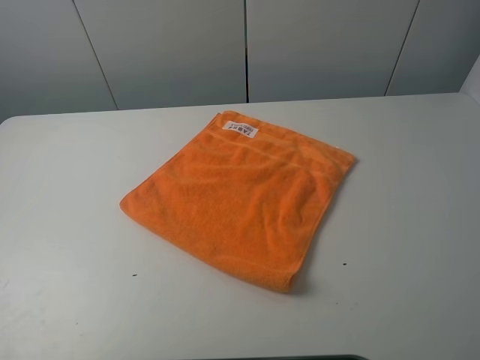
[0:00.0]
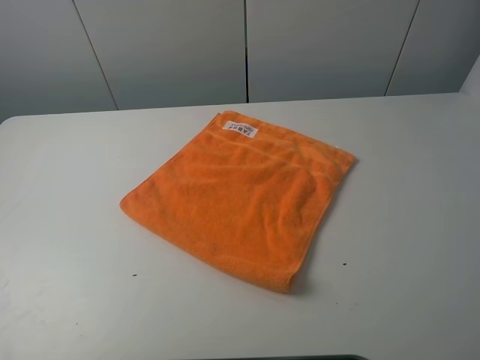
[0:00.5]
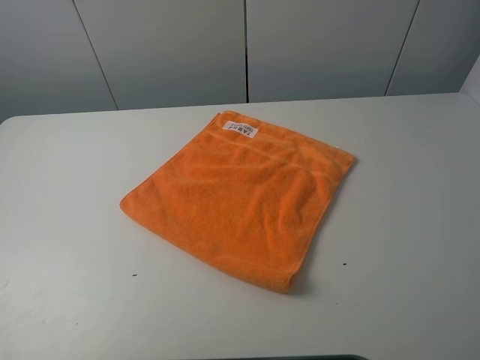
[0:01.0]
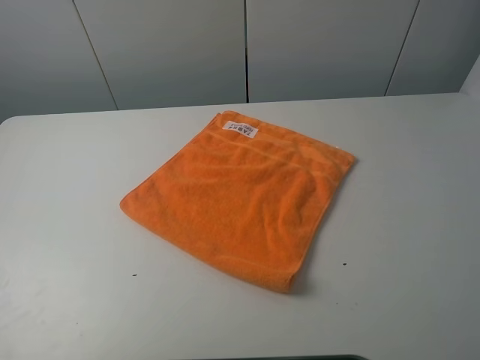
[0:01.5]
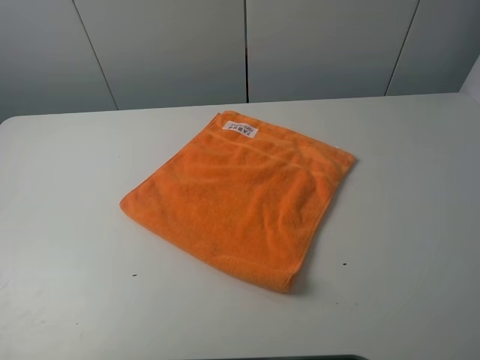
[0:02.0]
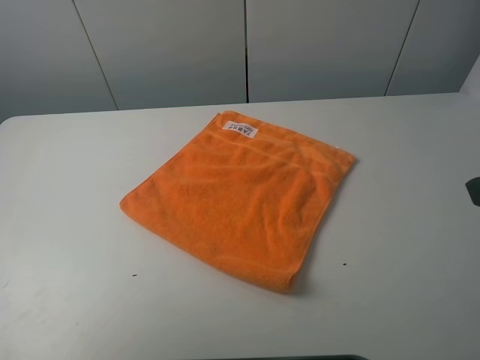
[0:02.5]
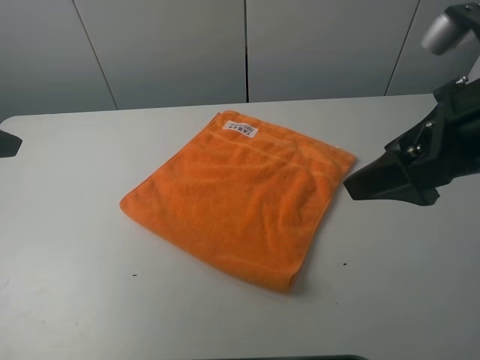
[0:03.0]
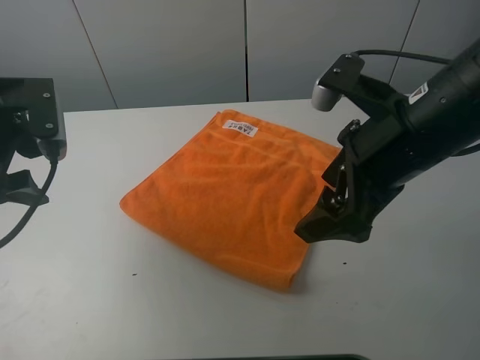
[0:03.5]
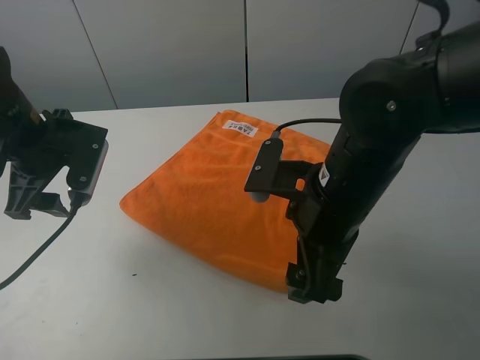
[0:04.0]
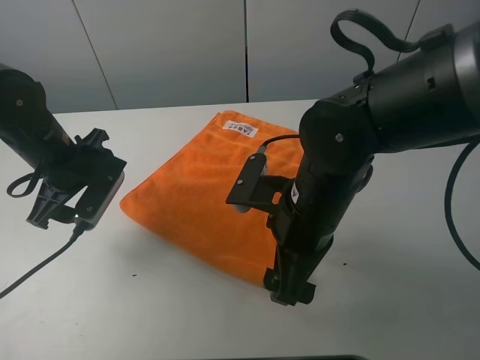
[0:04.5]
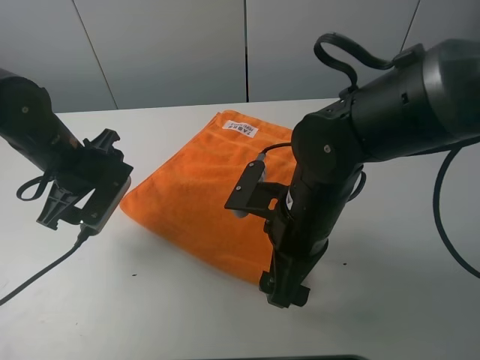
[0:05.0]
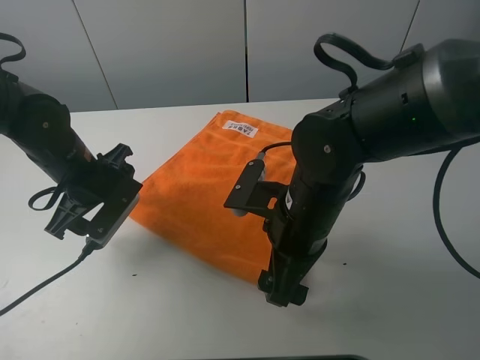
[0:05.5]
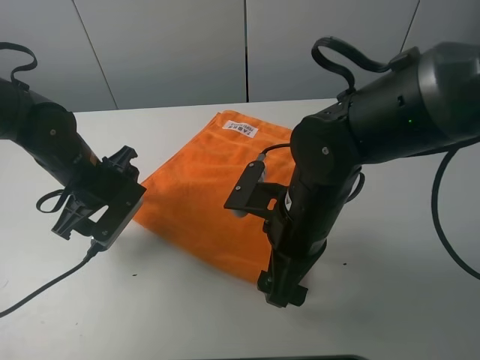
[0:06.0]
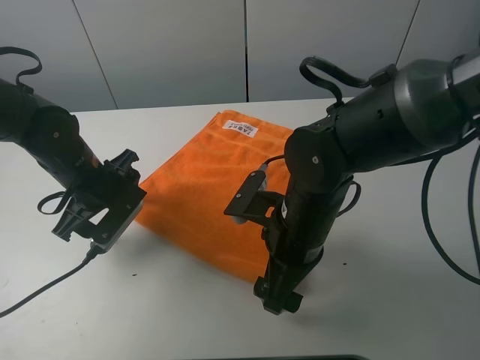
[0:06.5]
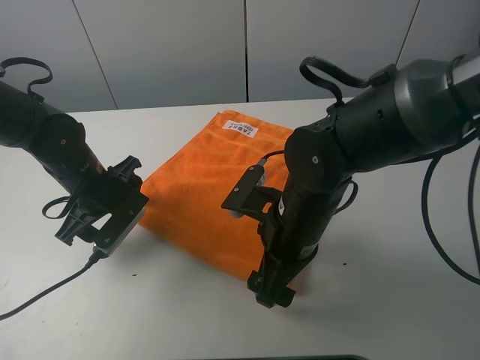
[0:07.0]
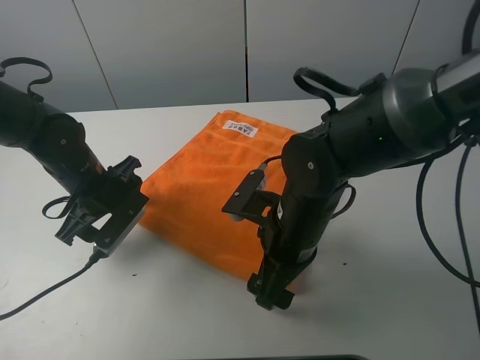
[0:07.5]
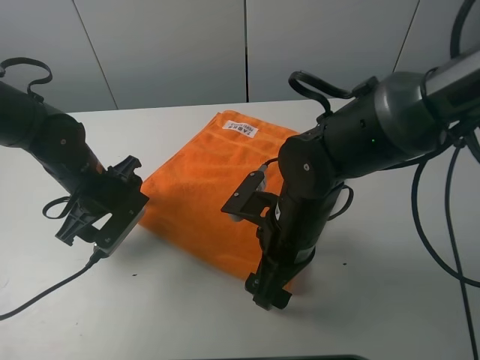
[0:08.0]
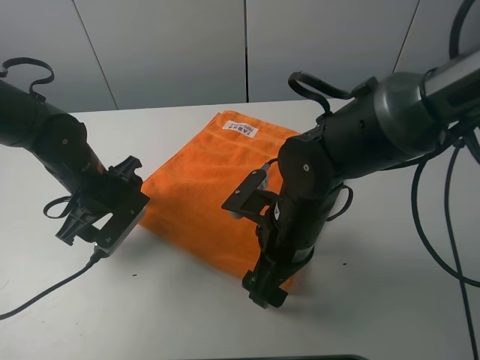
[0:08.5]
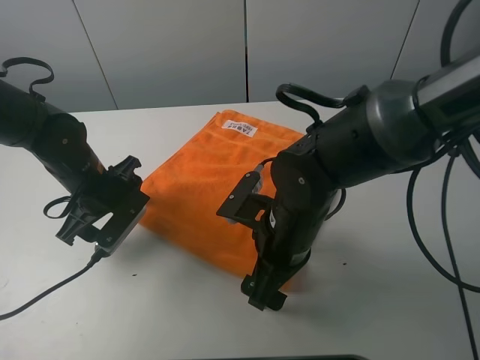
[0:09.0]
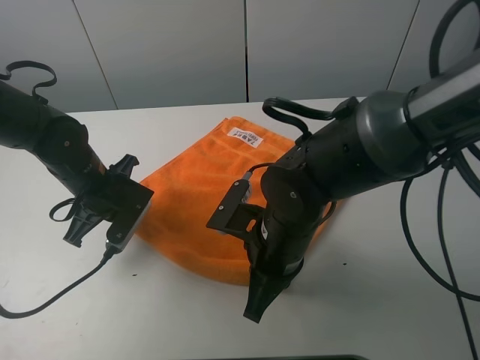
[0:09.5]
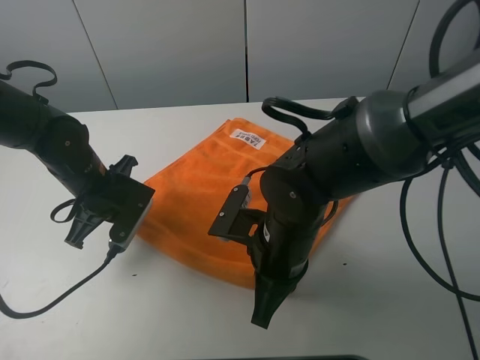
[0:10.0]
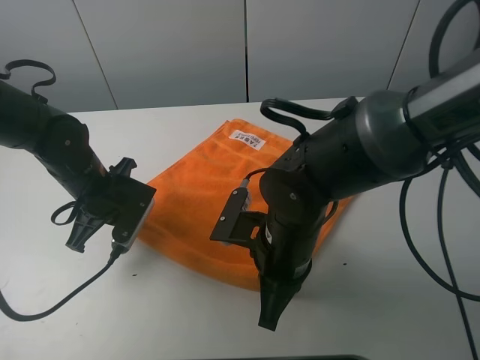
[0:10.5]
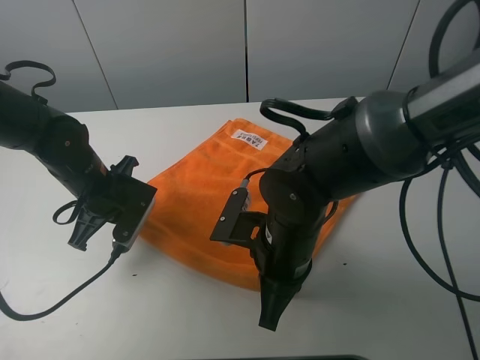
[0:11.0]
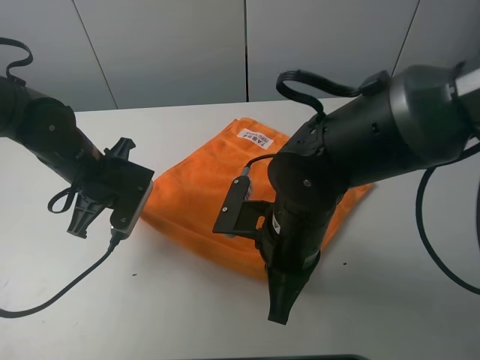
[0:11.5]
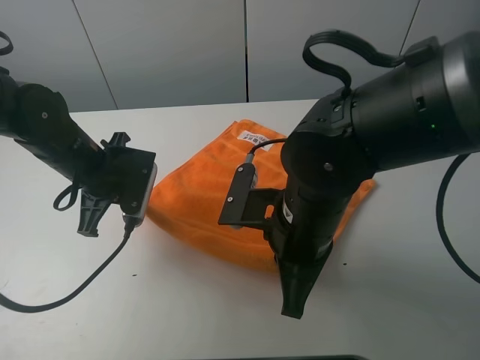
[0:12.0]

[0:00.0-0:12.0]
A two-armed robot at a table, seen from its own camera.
Task of the whole recording: fold the towels on the table.
Step, 0:00.0 to 0:09.5: Grasp the orange towel with the left gripper.
0:00.0 to 0:02.0: Both grippers stay put.
0:02.0 to 0:04.0: The left gripper travels forward by some 30 cm. The right gripper goes some 30 cm to the left, forward and downward.
0:04.0 to 0:06.0: The left gripper shifts some 5 cm downward. Meanwhile the right gripper changes place by roughly 5 cm.
0:06.0 to 0:08.0: There are only small adjustments of the grippers.
0:08.0 to 0:10.0: The right gripper closes up, while the left gripper closes up.
0:10.0 to 0:12.0: The right gripper changes place by some 5 cm.

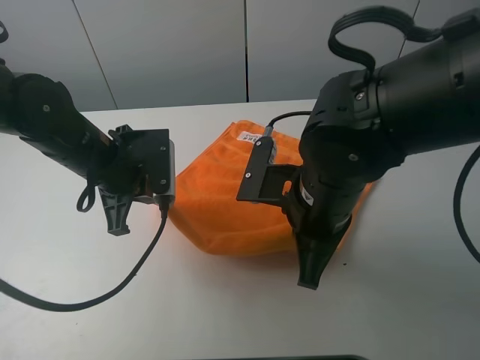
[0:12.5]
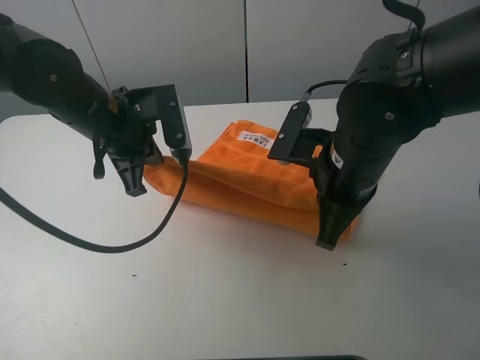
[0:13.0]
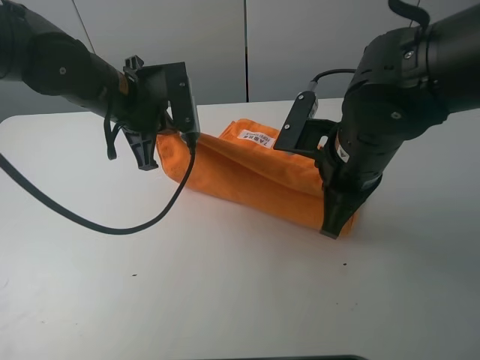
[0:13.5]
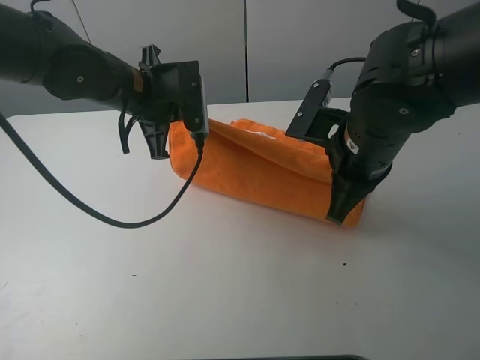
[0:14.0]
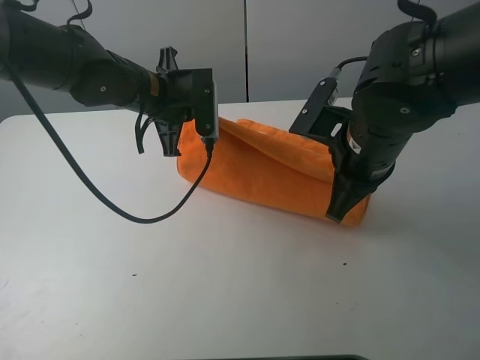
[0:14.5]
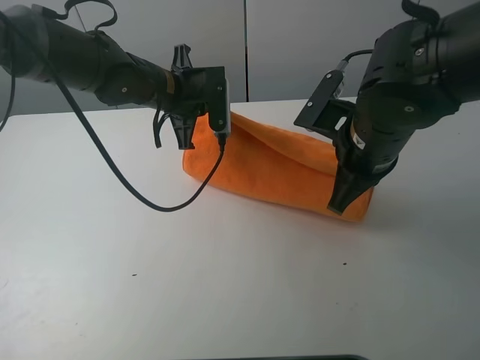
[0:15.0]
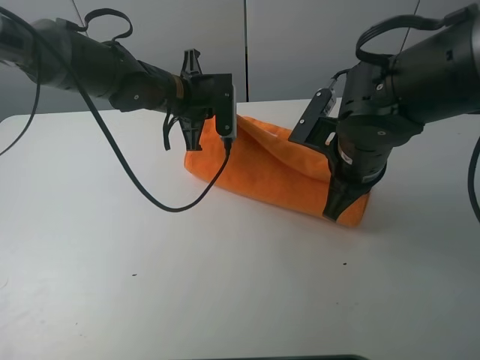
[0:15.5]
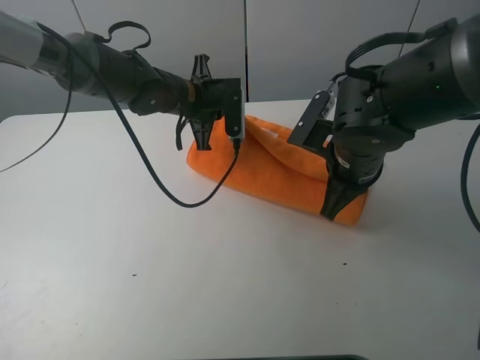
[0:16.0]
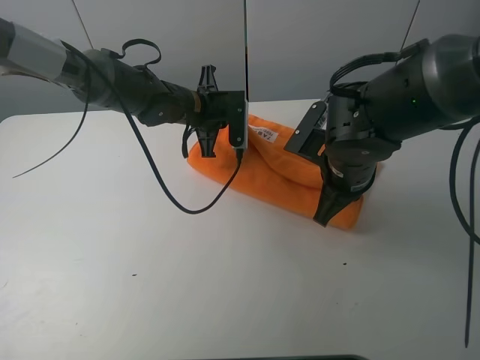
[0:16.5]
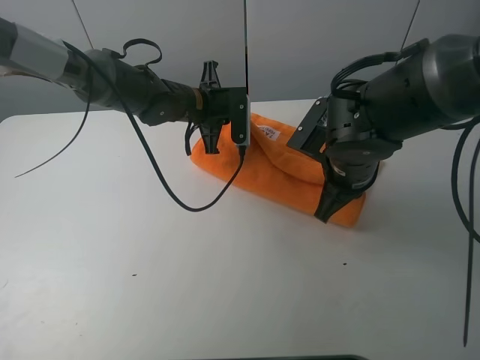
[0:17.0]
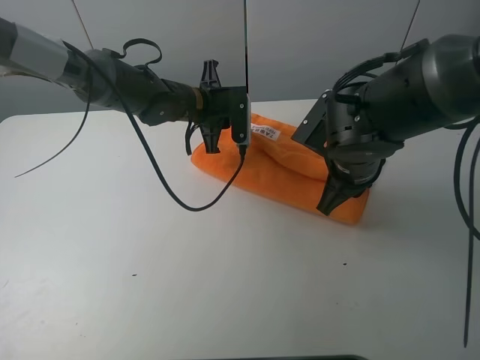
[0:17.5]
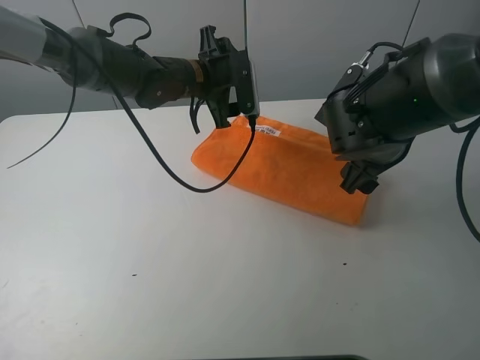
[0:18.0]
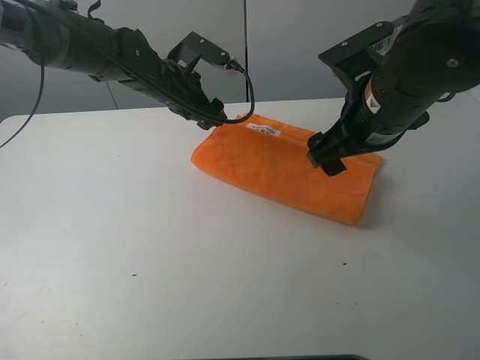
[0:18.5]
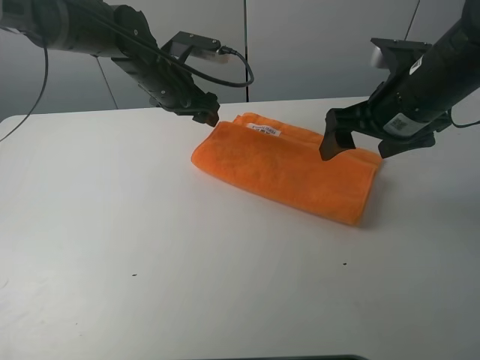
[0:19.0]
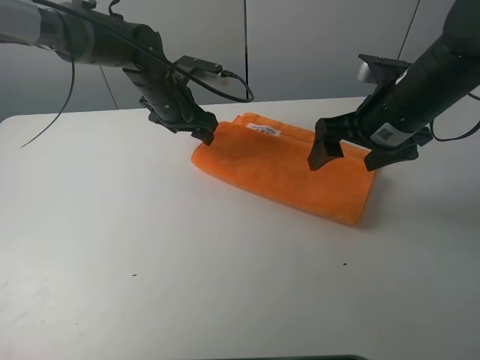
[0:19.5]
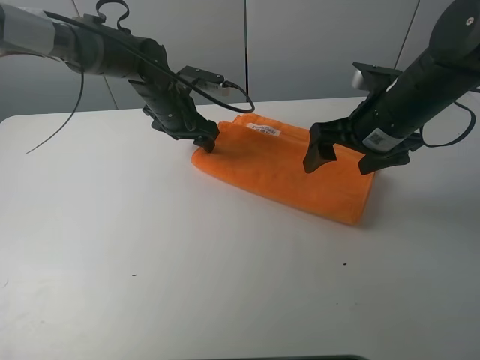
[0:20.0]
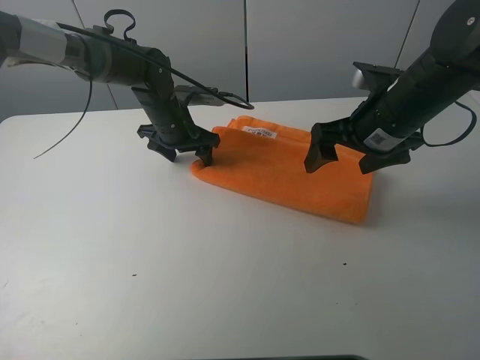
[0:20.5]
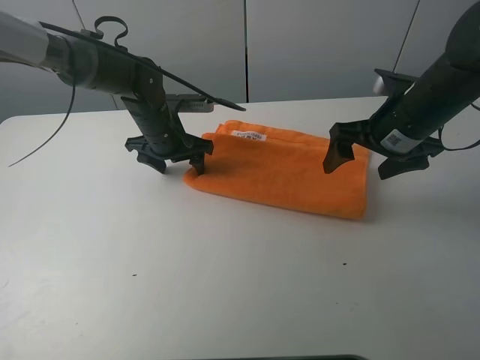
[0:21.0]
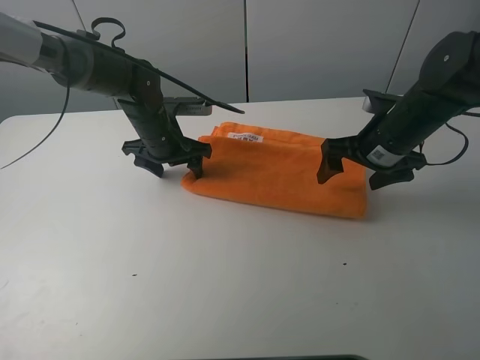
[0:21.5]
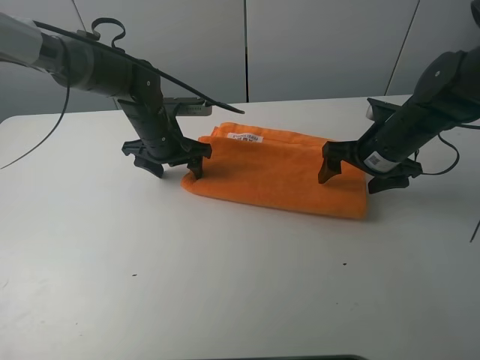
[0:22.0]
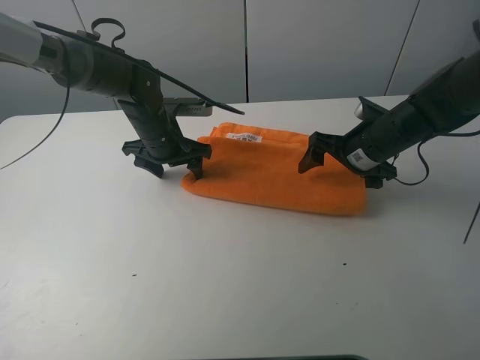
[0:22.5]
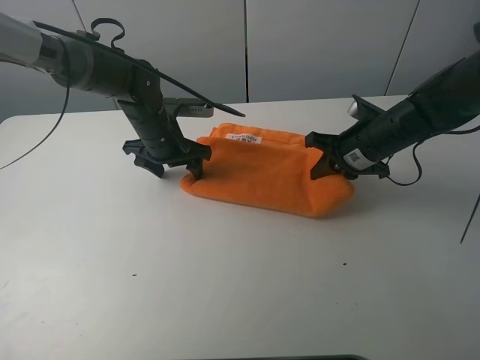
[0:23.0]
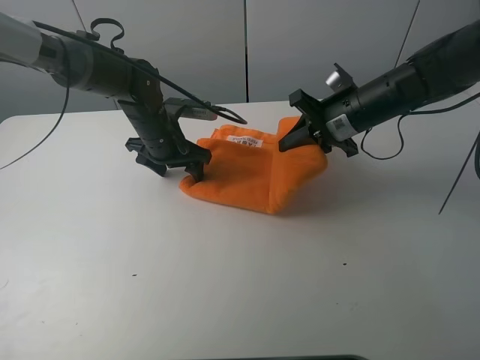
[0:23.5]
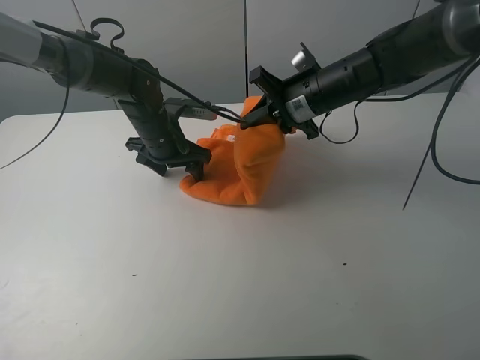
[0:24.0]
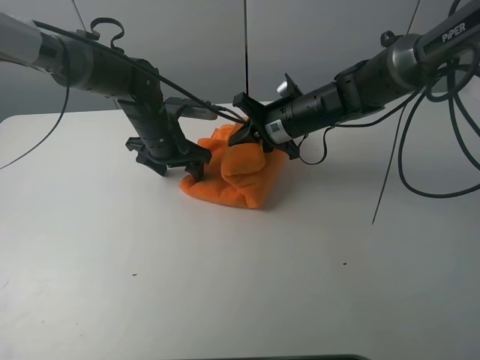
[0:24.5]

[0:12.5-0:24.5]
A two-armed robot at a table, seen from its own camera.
Task of the whole recording: fold the towels on the table.
Step, 0:12.5 to 0:19.0: Fold the orange towel upwards with the right gripper.
Step, 0:19.5 to 0:20.5: Press on the orange towel with the left gripper.
0:12.5 to 0:14.5: The left gripper is displaced forward and to the right by about 10 cm, while the right gripper shifts some 5 cm to the right.
0:14.5 to 0:16.5: The right gripper travels downward by approximately 5 cm; the left gripper travels downward and forward by roughly 10 cm.
0:16.5 to 0:18.5: The right gripper travels upward by about 10 cm, and opens its fingers; the left gripper shifts by some 5 cm, and opens.
0:18.5 to 0:20.5: The right gripper shifts by roughly 5 cm; the left gripper moves downward, some 5 cm.
0:20.5 to 0:22.5: The right gripper heads downward, covering roughly 10 cm.
0:22.5 to 0:24.5: The right gripper is displaced to the left by roughly 10 cm, and closes its fingers.

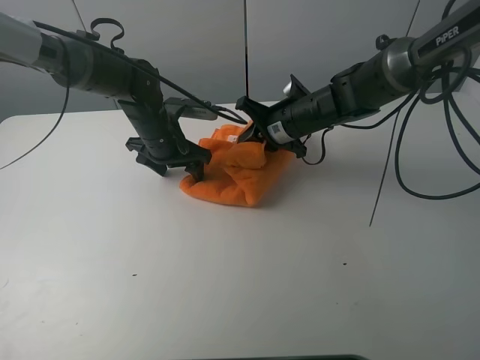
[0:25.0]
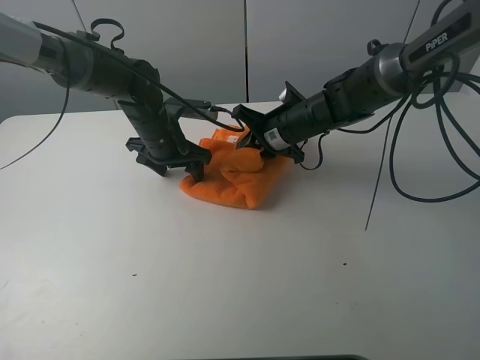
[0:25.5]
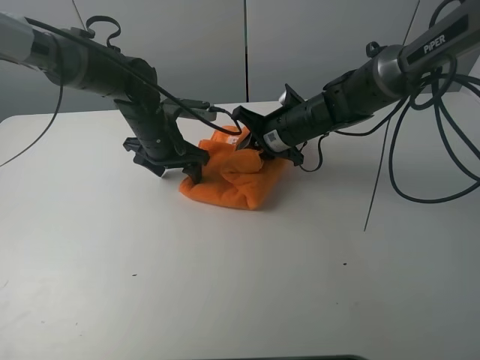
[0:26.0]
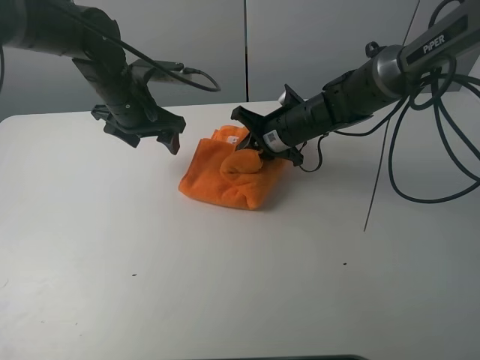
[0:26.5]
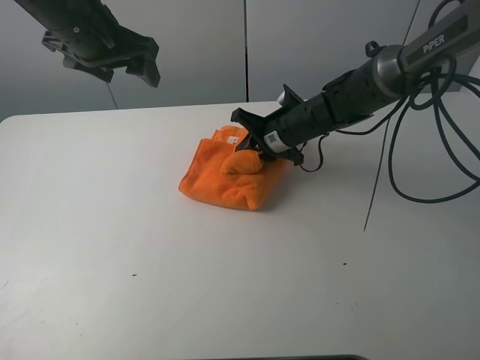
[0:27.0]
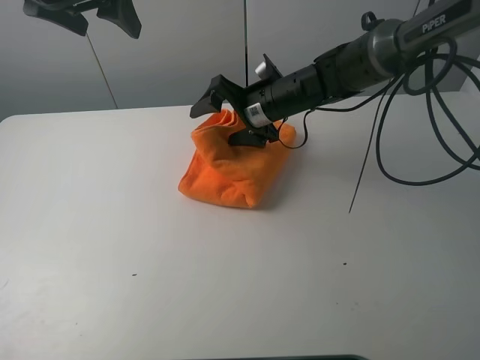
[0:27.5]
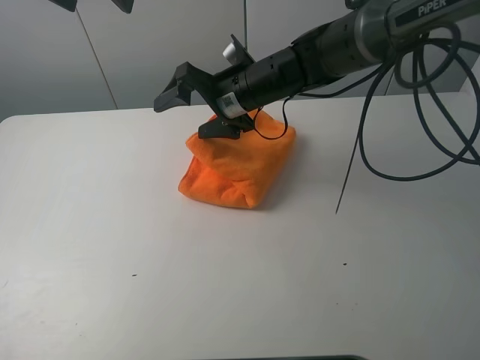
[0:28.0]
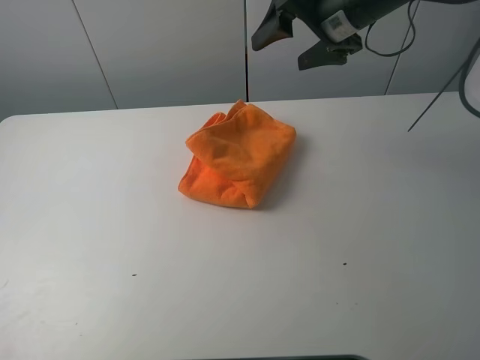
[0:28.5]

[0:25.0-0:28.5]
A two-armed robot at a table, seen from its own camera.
Task of the whole recording: fold the towels on the table.
Step, 0:25.0 to 0:28.0: Fold the orange towel from right to left with right gripper.
0:25.0 to 0:27.0: The left gripper is displaced upward by approximately 20 cm.
0:27.0 to 0:28.5: The right gripper travels upward by some 20 cm, and opens its fingers. The left gripper heads upward and to the left, covering some 10 cm.
